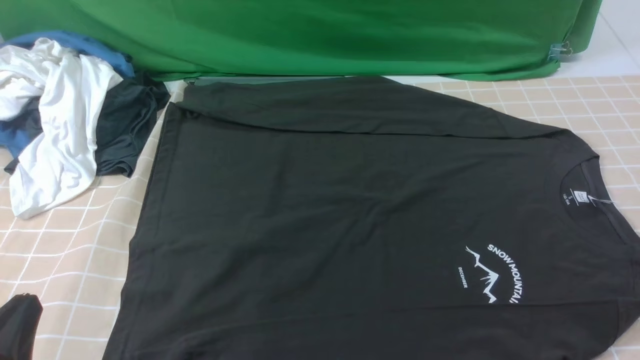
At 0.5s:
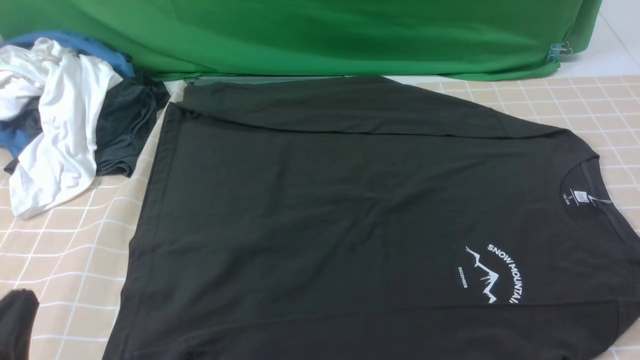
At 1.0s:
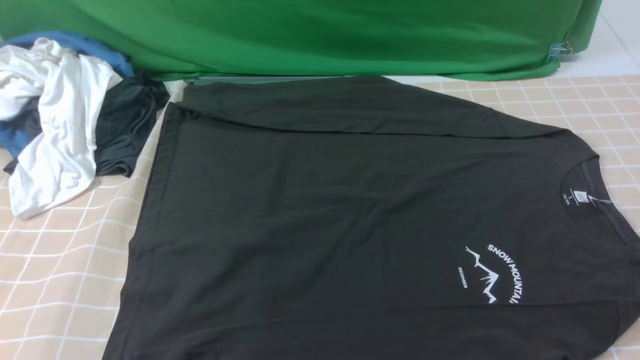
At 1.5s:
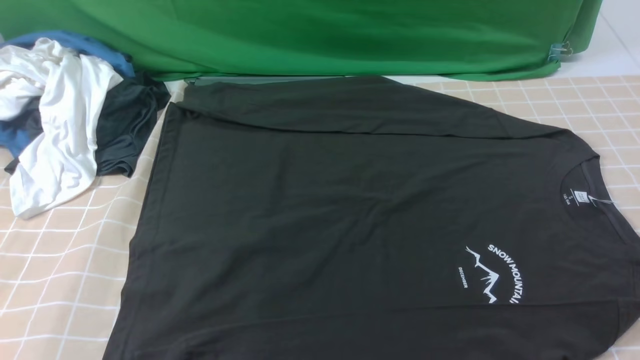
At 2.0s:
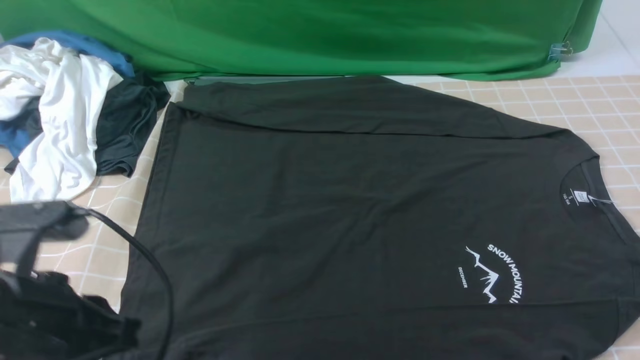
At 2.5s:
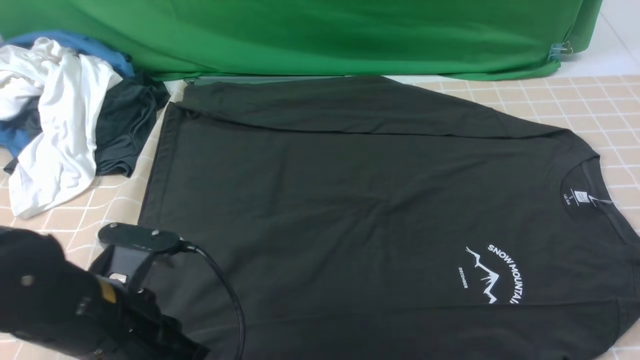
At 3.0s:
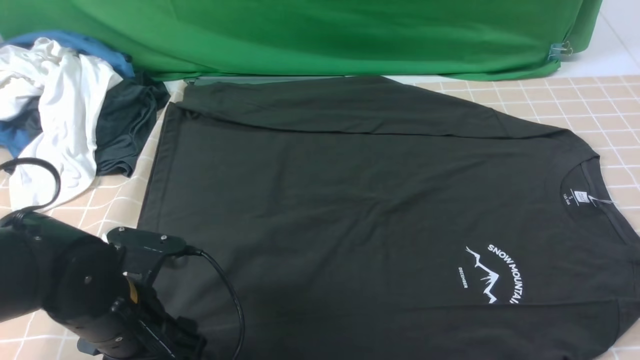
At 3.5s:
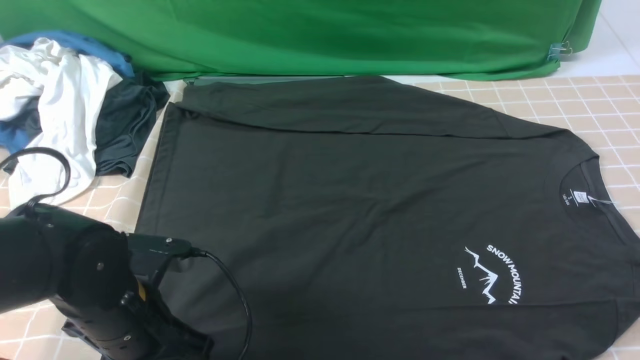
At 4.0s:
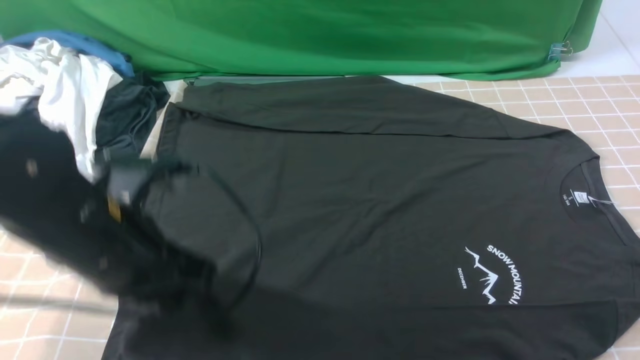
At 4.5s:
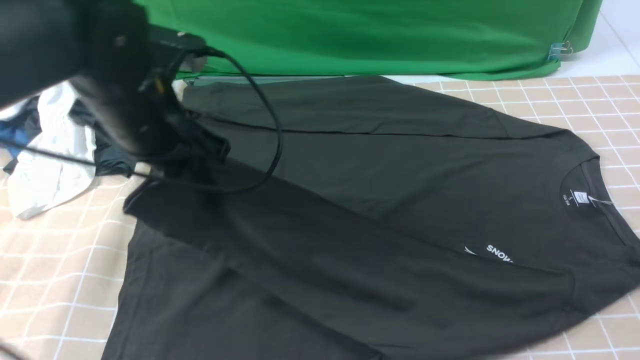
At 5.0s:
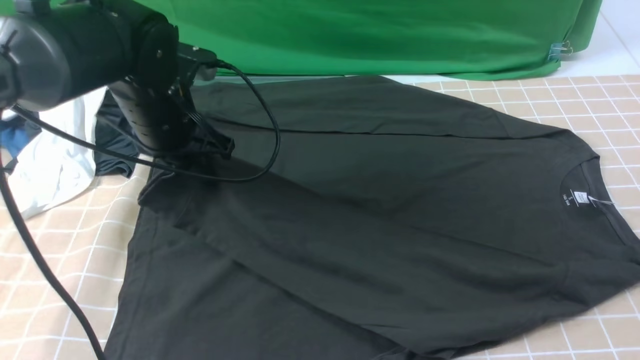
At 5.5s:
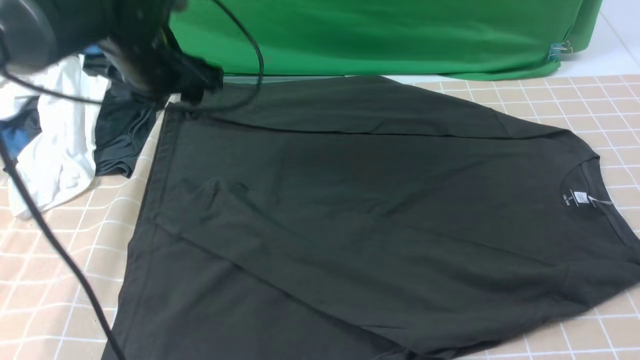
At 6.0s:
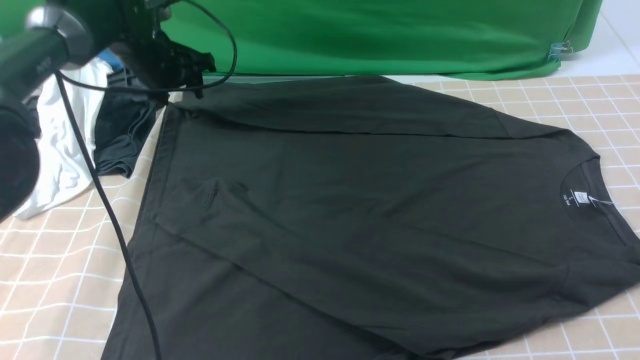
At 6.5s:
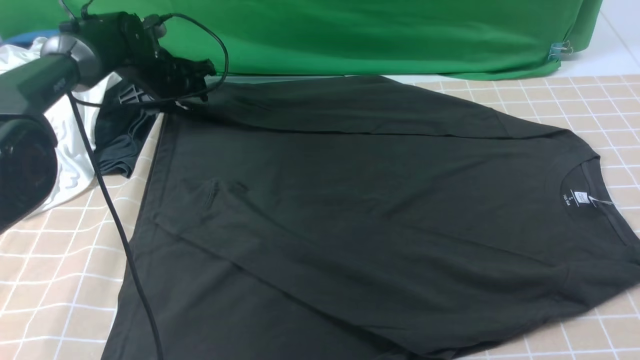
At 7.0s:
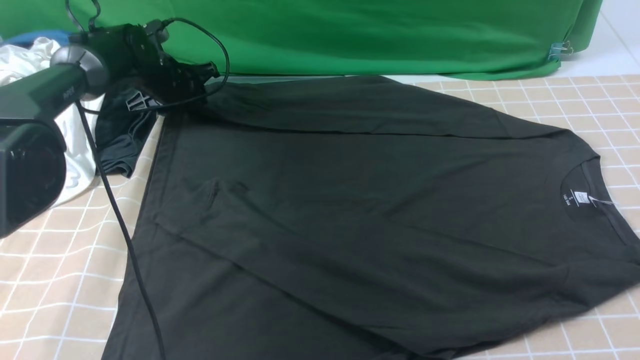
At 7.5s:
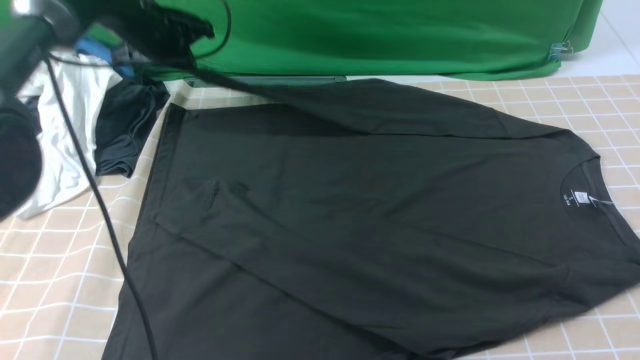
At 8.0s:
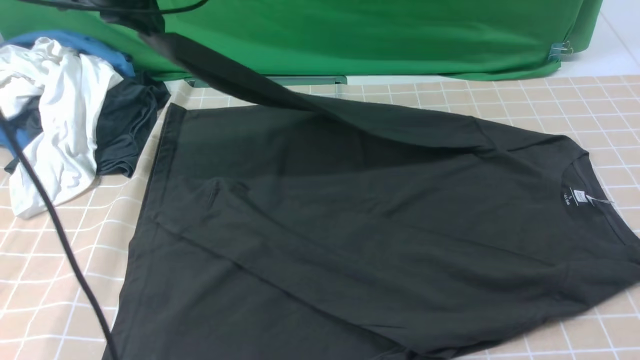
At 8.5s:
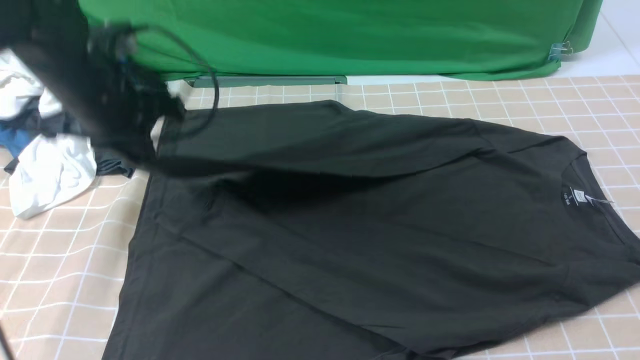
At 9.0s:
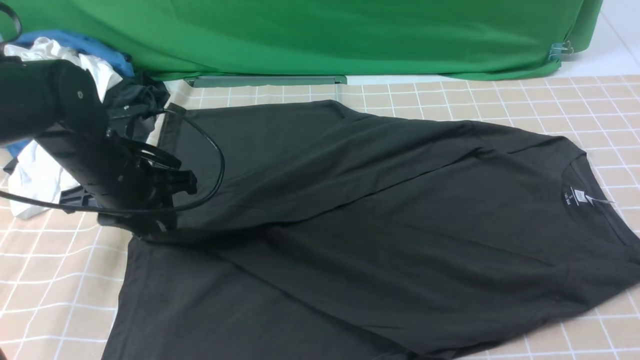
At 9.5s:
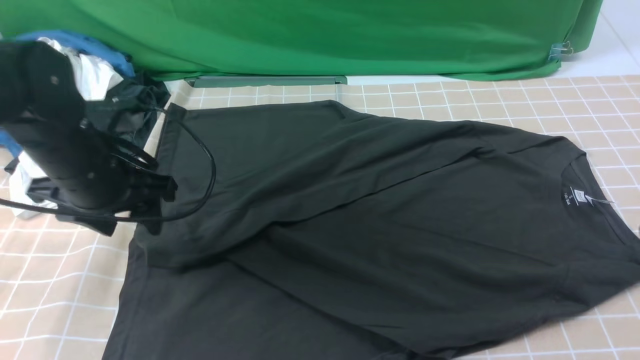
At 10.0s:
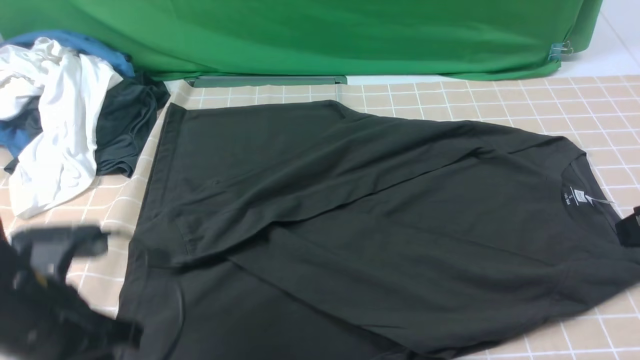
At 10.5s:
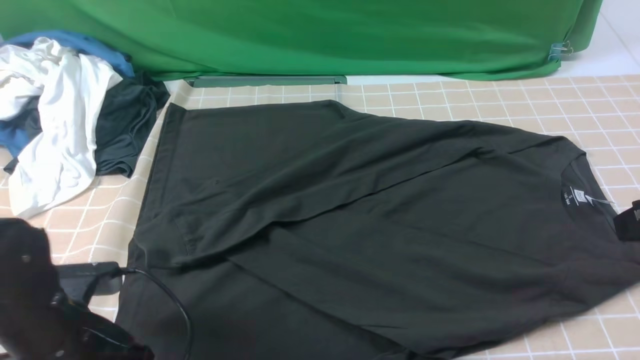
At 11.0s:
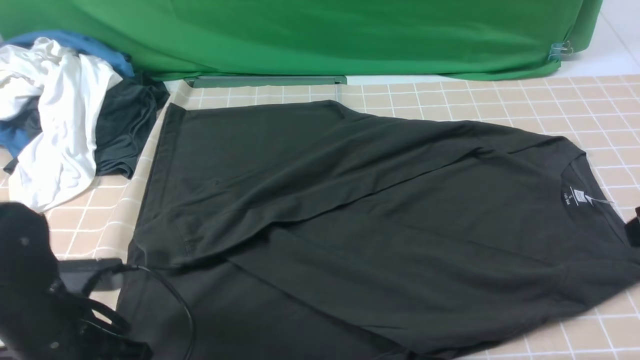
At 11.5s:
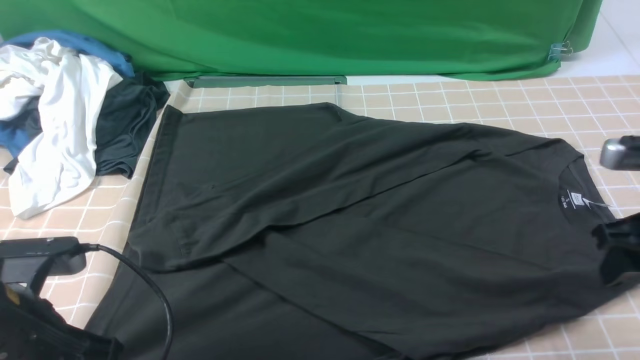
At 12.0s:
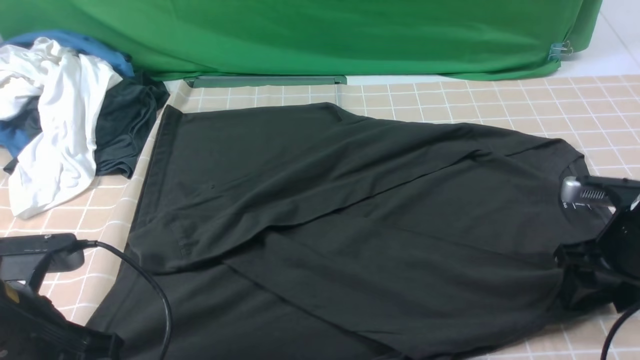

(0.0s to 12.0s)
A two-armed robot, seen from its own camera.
Step, 0.0s - 3.5s: use the left arm to clamp the cuff closest to it.
Step, 4.0s - 5.0s: use the left arm to drag and place the cuff at the centered position on the left edge of the fabric.
Step, 5.5s - 7.0s: use the left arm to clamp the cuff farthest from it.
Step, 7.5s - 9.0s: use the left arm to drag and drop the cuff onto the cuff closest to the left arm.
0.0s - 2.0s: The left gripper travels forward and upward by roughly 10 cm.
2.0s - 4.0s: The right gripper shifts roughly 5 cm forward; the left gripper goes roughly 10 cm forward and to the right, reaches roughly 10 cm downward, then returns, and opens, then closes again.
4.0s - 6.0s: The left gripper heads forward, covering roughly 30 cm, and opens its fingers.
6.0s - 8.0s: The left gripper is displaced upward and backward by some 15 cm, and closes its fingers.
8.0s - 10.0s: The right gripper shifts roughly 10 cm forward; the left gripper moves backward and downward, roughly 30 cm, and opens, then closes once more.
10.0s - 12.0s: The left gripper opens, then closes once more. The right gripper travels downward and forward by about 20 cm, and opens.

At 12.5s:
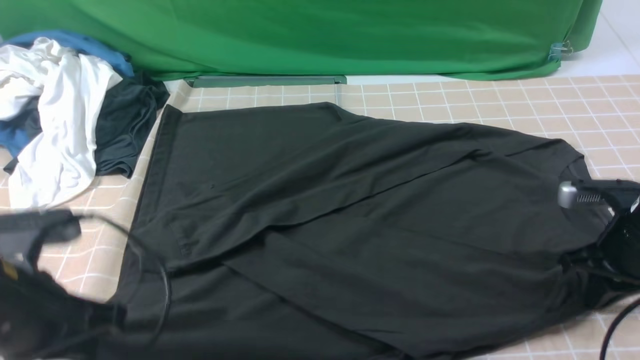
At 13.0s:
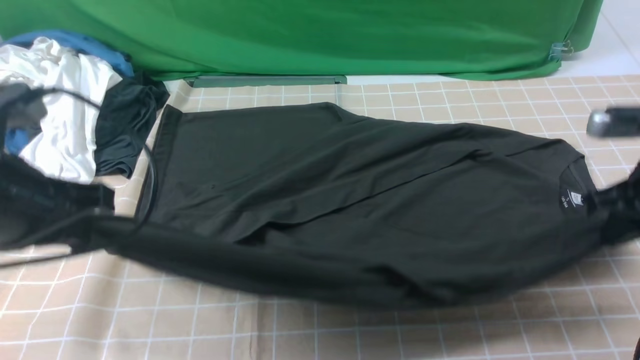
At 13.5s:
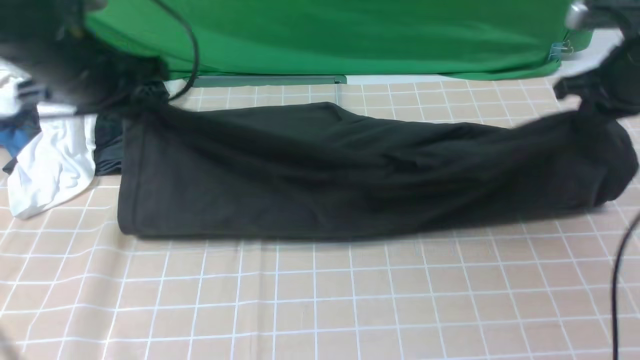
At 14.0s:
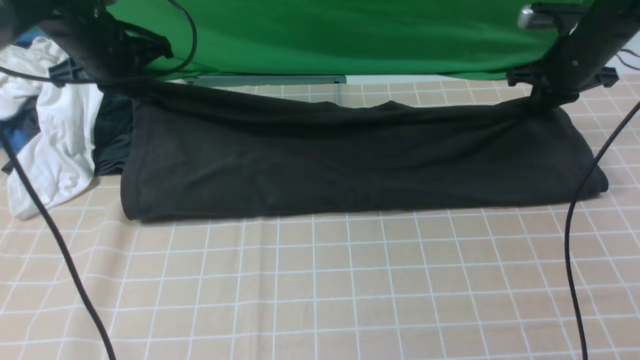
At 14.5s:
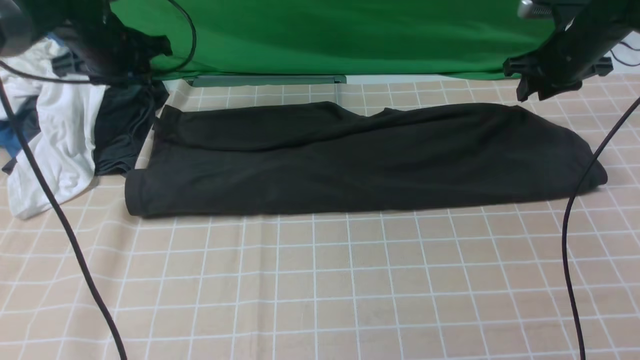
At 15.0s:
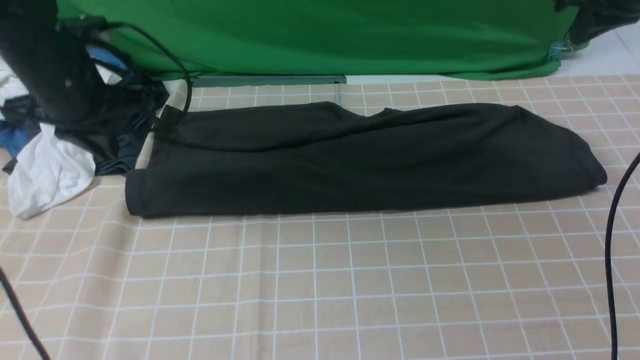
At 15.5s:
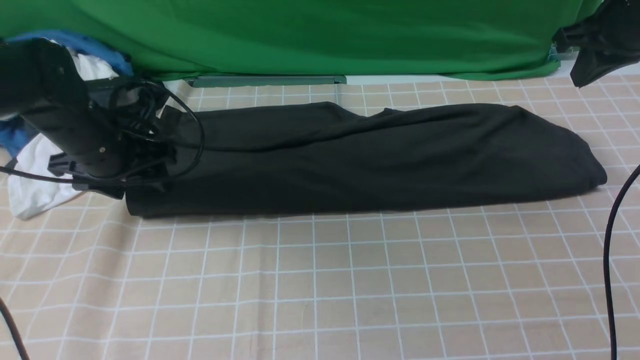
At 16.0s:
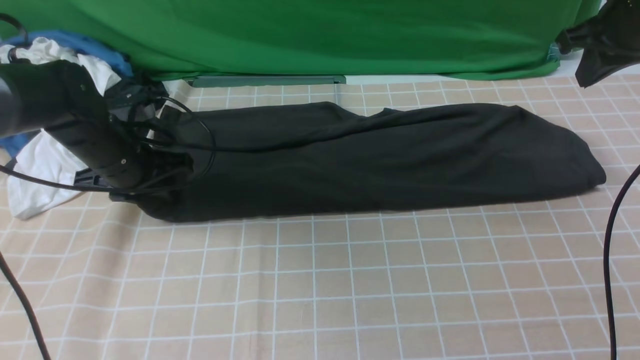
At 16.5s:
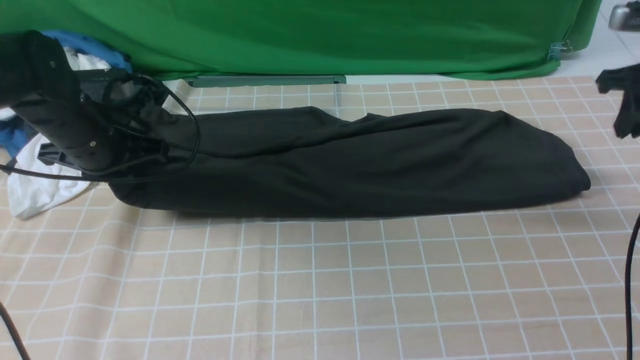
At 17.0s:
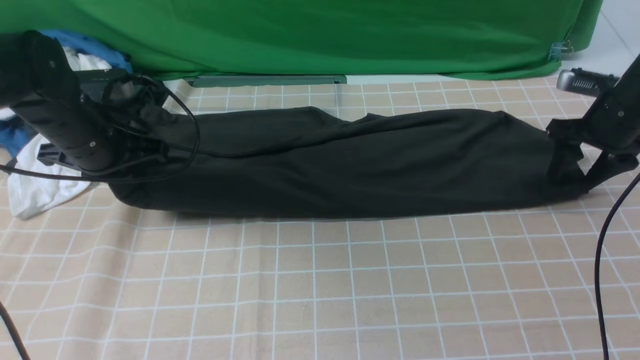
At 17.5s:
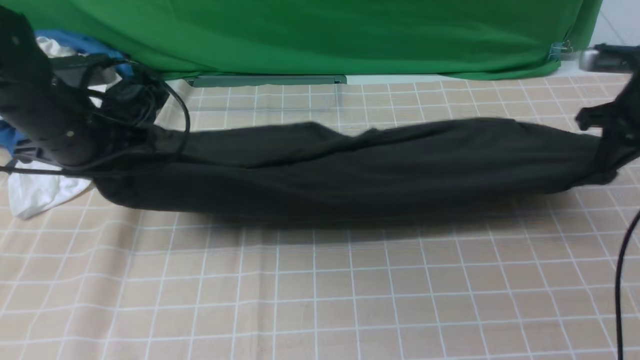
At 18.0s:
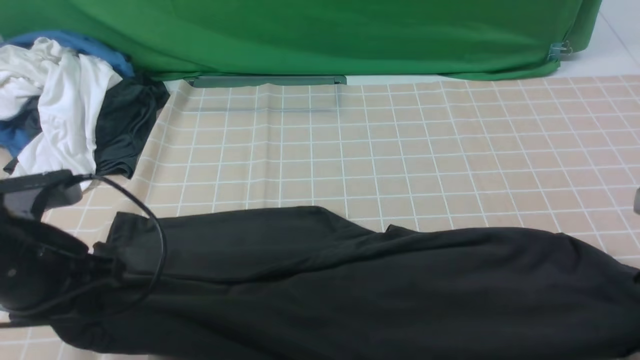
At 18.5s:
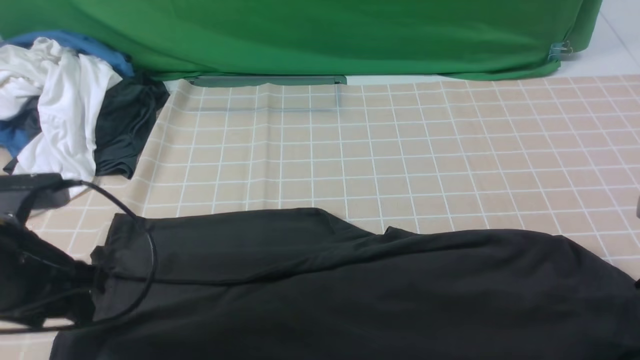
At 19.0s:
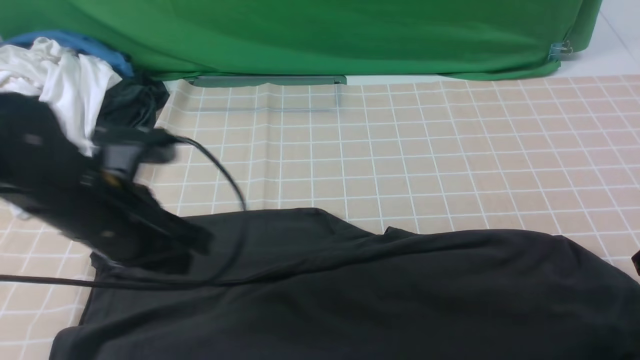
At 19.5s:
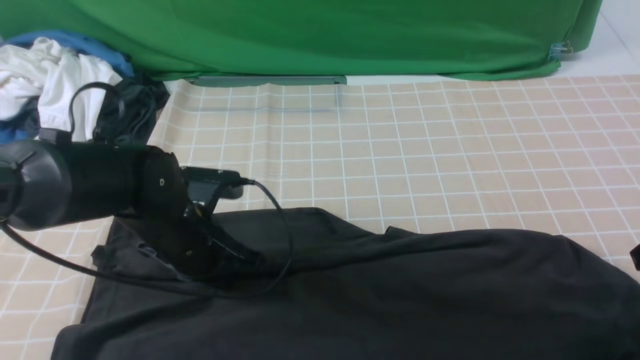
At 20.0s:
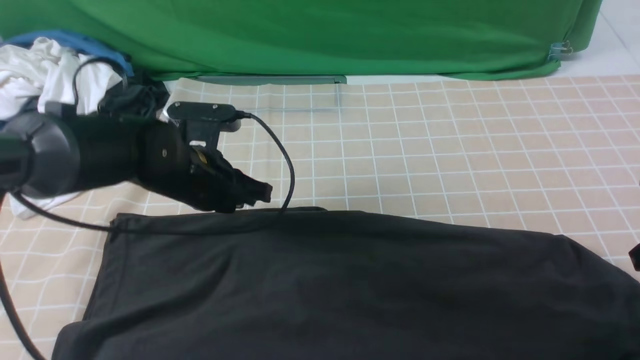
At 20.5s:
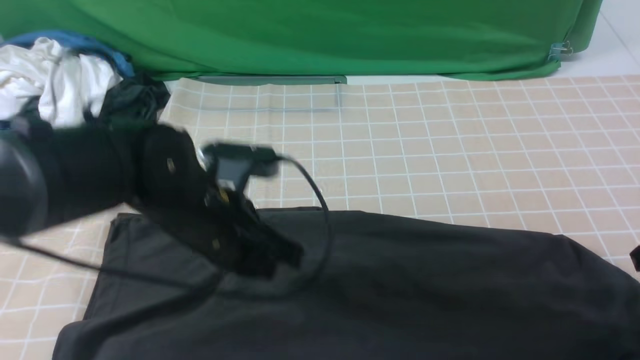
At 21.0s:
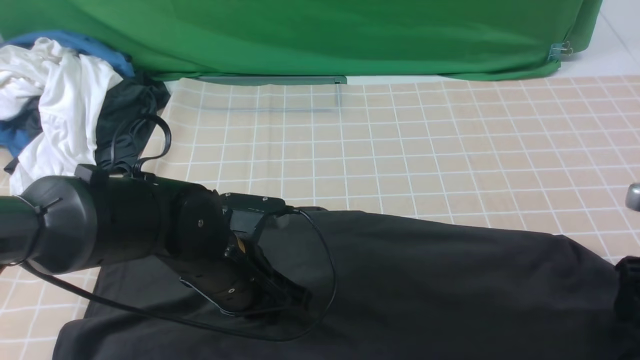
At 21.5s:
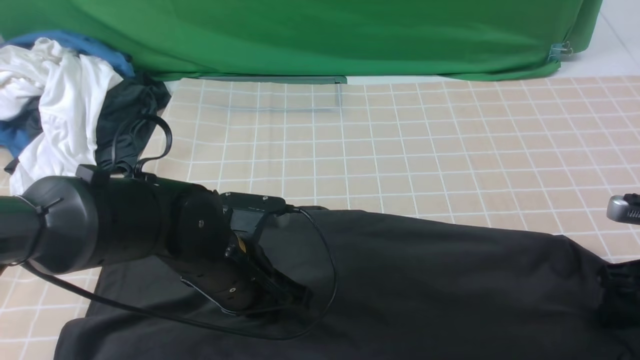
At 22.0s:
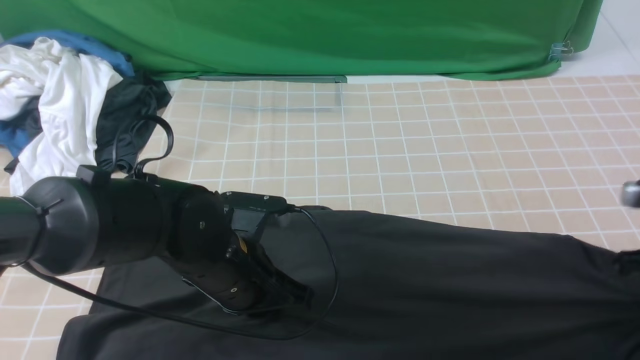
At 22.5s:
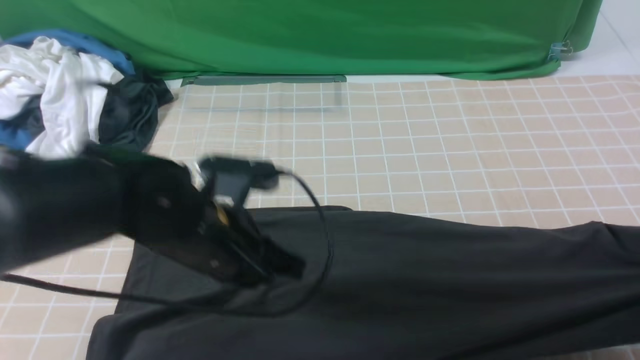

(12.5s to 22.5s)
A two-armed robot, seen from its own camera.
Step, 12.5s - 14.5s: use both arms to drag the lower edge of the fabric forward and fold it over the upper edge.
Step, 15.0s - 21.5s: use the right arm to clamp the right edge of the fabric.
12.5s - 14.5s: The two grippers go about 25 cm forward. The left gripper opens its fingers.
14.5s - 16.5s: The right gripper travels backward and to the right by some 10 cm, moves approximately 10 cm upward and comes back, and closes, then reopens; the left gripper goes roughly 10 cm backward and downward, and opens, then closes once more.
16.5s - 18.5s: The two grippers go some 20 cm backward. The left gripper opens its fingers.
18.5s - 20.5s: The left gripper travels to the right and downward by some 15 cm, and closes up.
20.5s - 22.5s: The right gripper moves roughly 5 cm downward and comes back, and closes its fingers.
